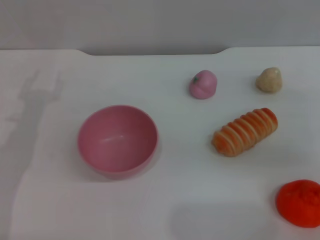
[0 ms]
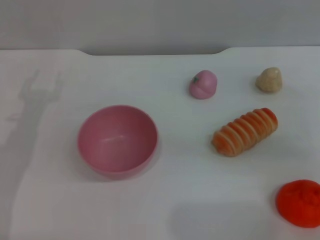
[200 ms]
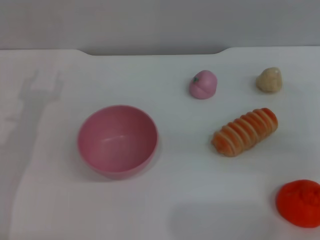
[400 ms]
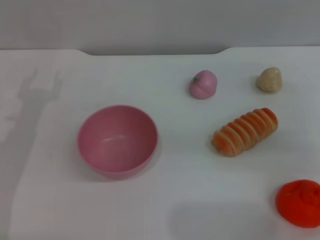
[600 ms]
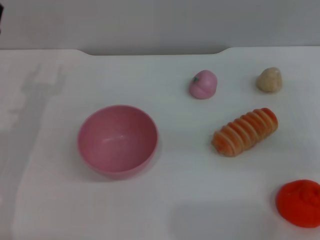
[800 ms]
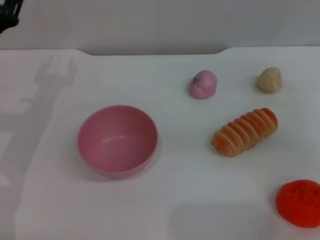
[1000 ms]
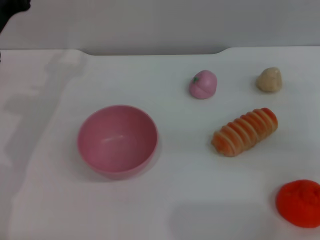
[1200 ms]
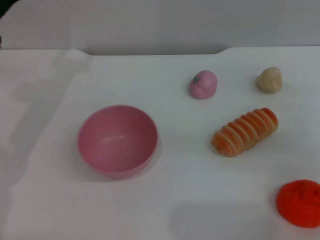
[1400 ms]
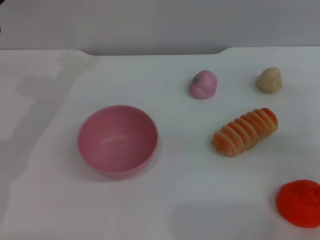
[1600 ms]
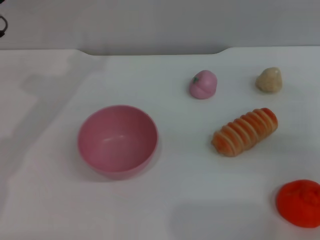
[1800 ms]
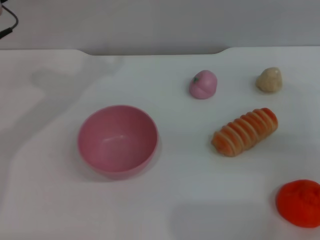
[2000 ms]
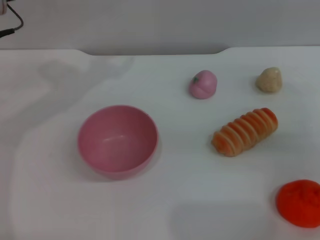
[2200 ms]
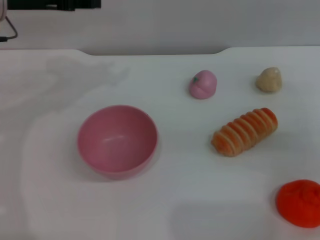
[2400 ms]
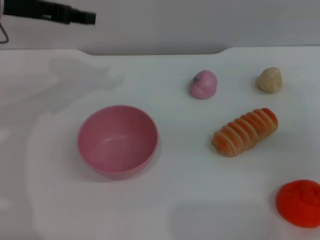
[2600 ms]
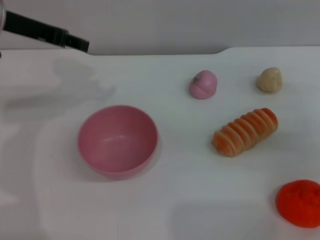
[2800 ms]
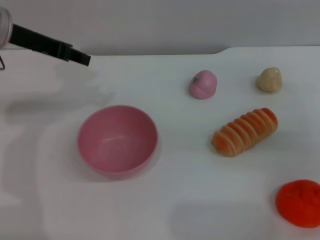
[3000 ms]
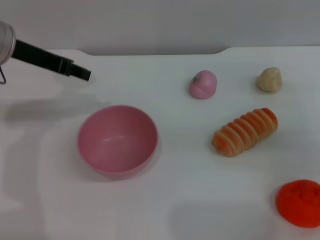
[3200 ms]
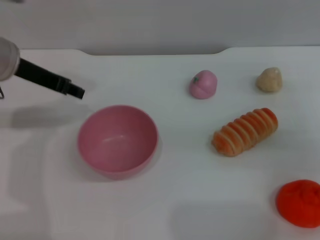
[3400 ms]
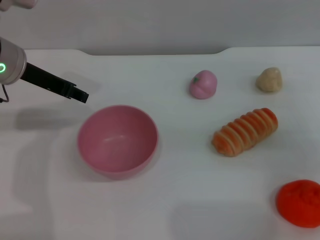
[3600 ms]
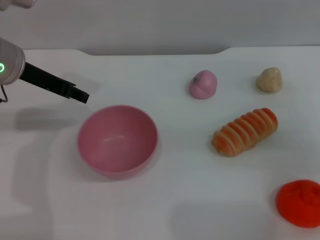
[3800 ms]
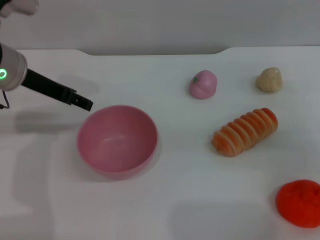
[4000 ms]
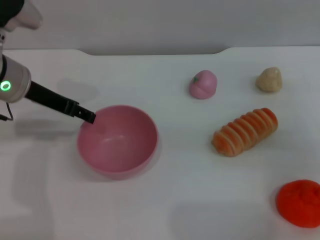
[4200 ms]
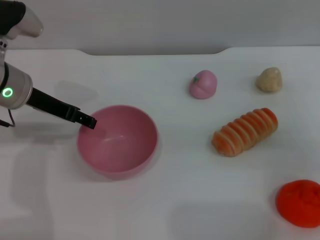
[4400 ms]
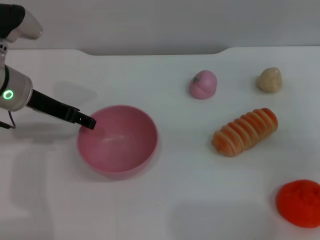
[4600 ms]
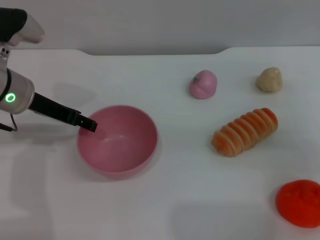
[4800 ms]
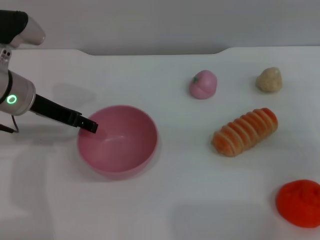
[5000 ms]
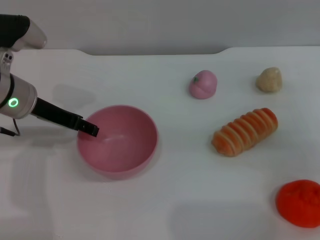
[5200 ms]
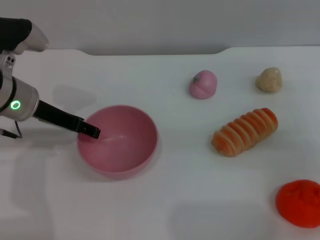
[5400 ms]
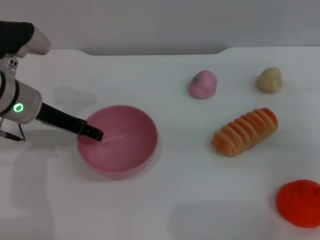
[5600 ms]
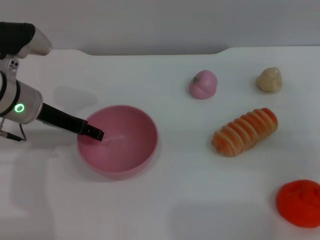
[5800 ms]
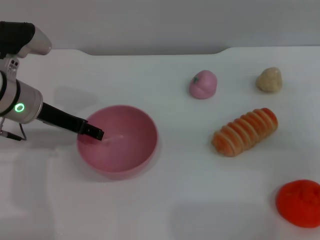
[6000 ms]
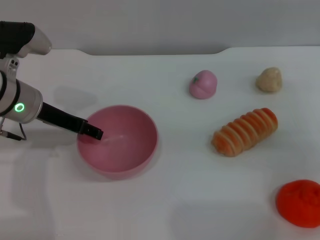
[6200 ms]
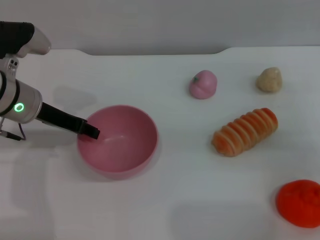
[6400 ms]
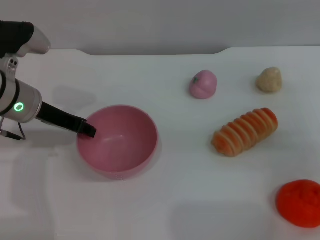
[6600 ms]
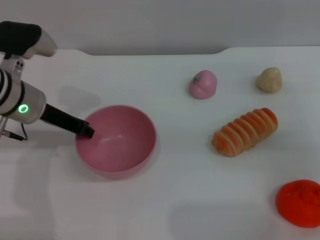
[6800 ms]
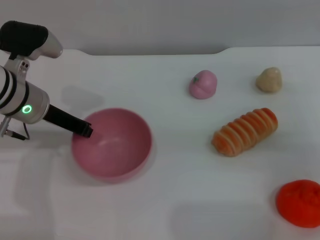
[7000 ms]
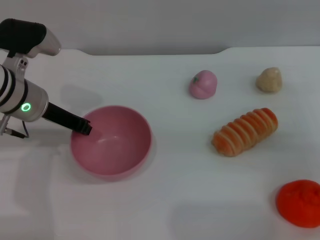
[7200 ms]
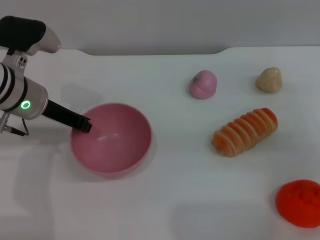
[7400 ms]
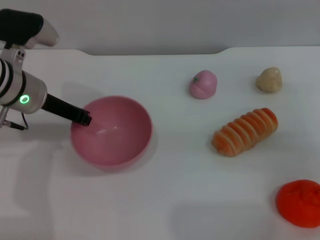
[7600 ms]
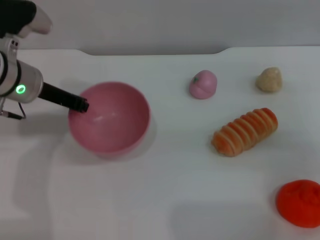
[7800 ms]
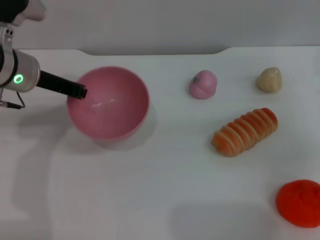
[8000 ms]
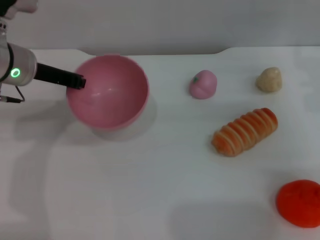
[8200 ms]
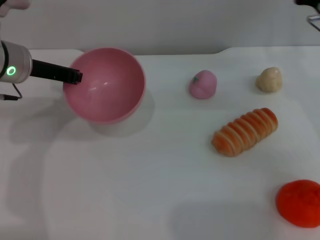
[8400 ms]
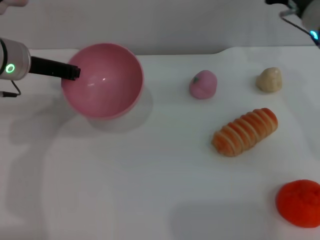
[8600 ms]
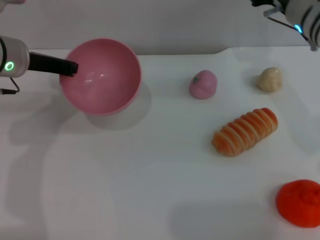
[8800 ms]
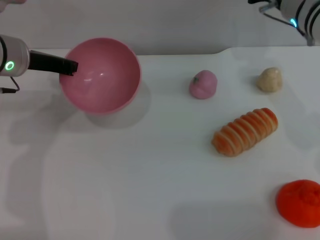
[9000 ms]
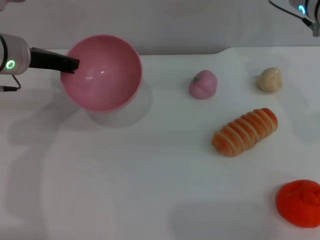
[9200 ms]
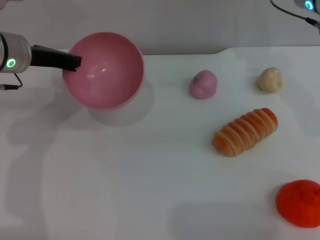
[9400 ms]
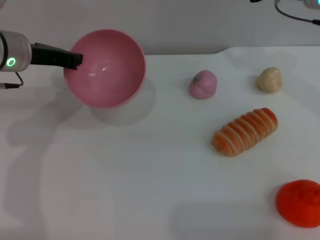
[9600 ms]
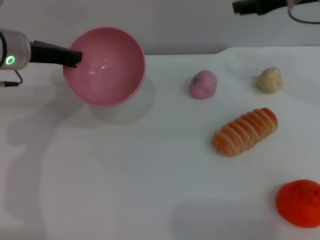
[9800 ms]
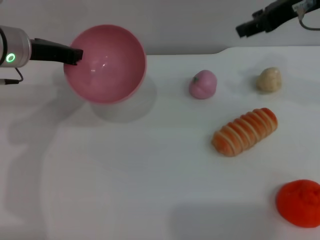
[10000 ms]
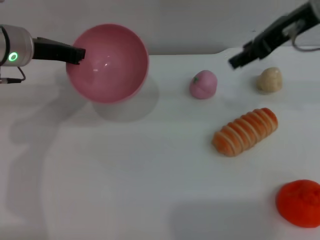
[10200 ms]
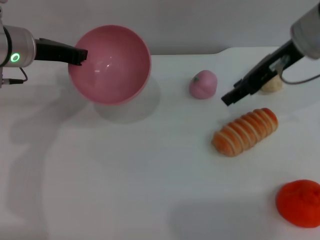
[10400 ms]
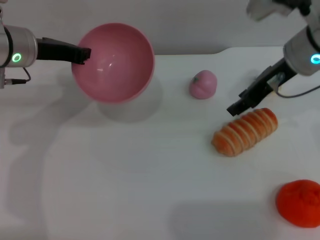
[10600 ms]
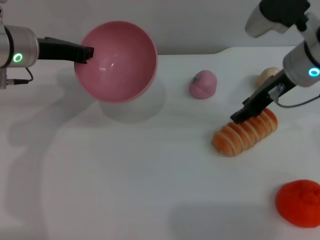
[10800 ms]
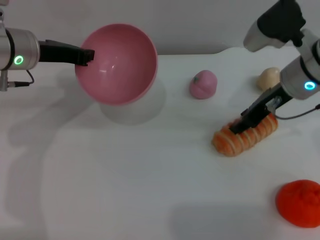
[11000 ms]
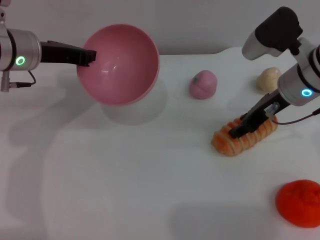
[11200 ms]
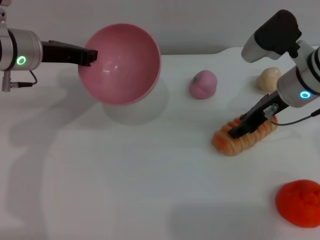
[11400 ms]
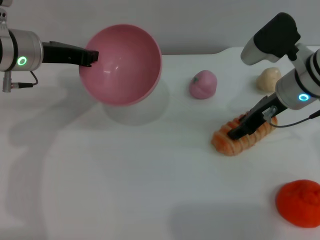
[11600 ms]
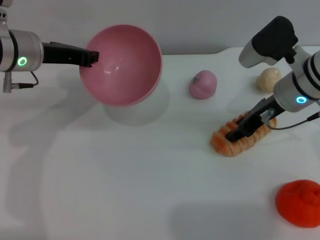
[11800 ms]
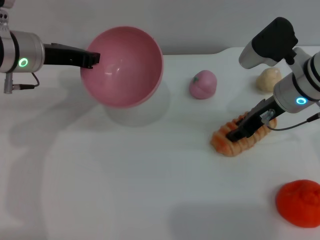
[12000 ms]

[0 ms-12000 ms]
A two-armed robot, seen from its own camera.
Task of the whole recording: put the bread into the pink bowl and pour it out repeatedly.
Step, 0 ms to 8200 ms: Pick up the bowl with the left gripper.
3000 ms to 4400 ms: The left gripper moves downward, roughly 5 cm.
4400 ms to 6000 ms: There are only small adjustments of the grippers.
6000 ms to 7600 ms: The left gripper closes its fingers.
7600 ms to 9000 ms: The right gripper travels to the left, forward and upward by approximately 20 cm.
10400 ms to 12000 ms: The right gripper heads downward, covering some 10 cm.

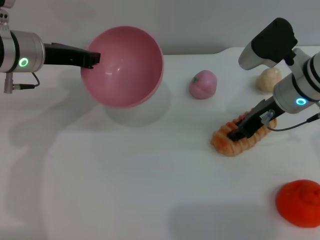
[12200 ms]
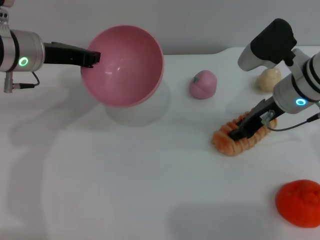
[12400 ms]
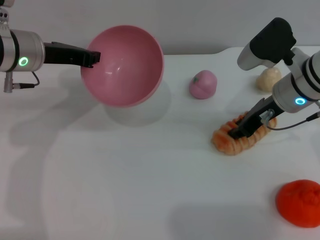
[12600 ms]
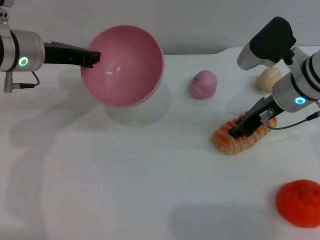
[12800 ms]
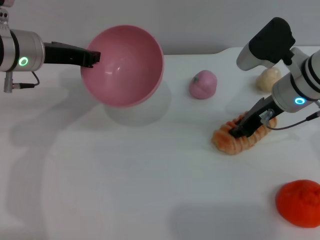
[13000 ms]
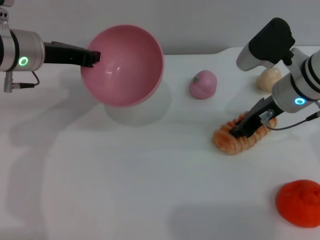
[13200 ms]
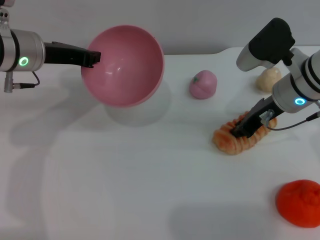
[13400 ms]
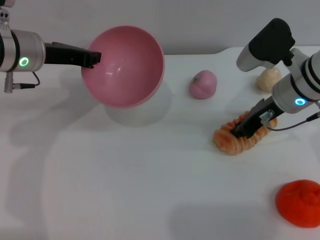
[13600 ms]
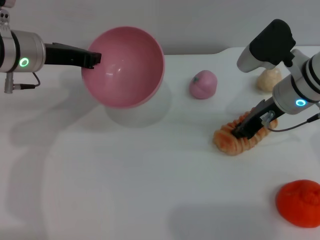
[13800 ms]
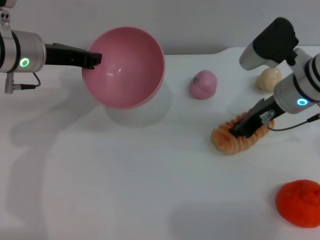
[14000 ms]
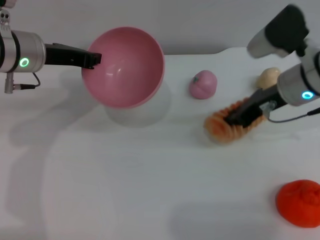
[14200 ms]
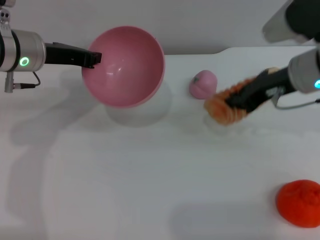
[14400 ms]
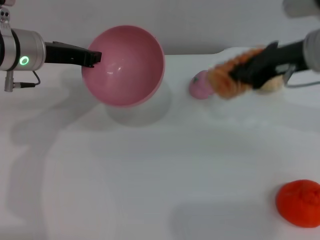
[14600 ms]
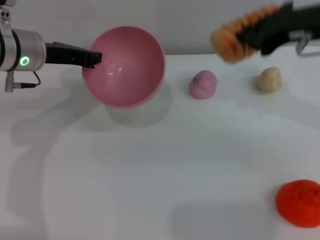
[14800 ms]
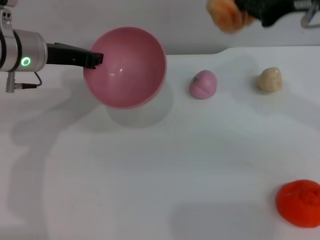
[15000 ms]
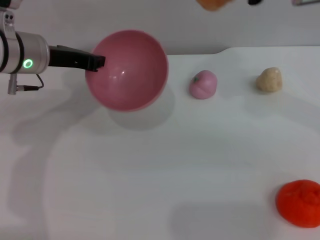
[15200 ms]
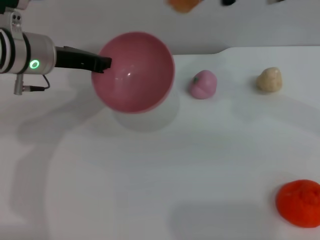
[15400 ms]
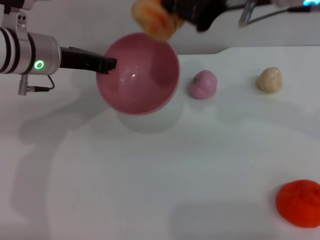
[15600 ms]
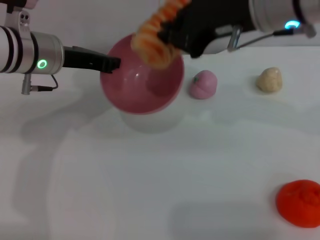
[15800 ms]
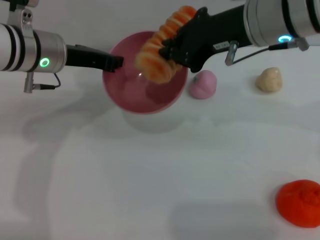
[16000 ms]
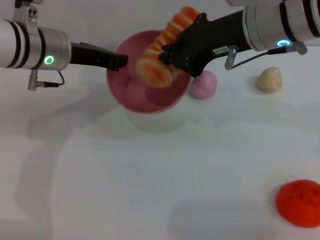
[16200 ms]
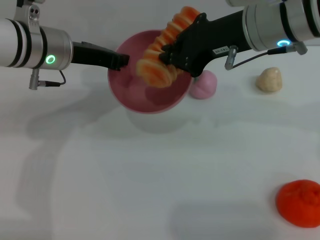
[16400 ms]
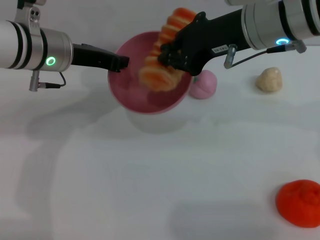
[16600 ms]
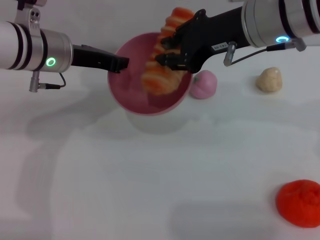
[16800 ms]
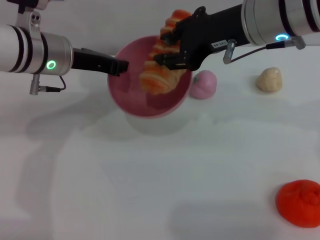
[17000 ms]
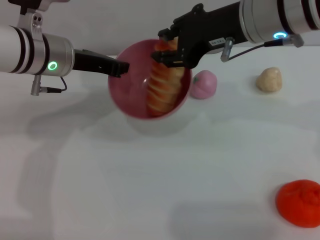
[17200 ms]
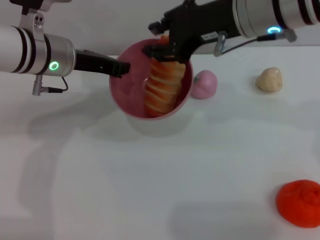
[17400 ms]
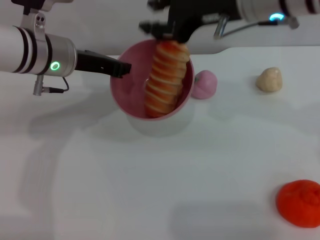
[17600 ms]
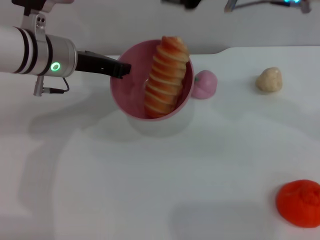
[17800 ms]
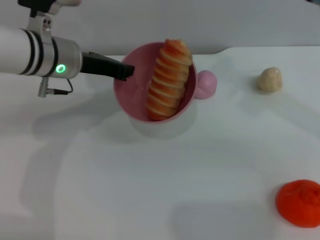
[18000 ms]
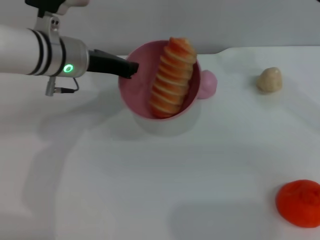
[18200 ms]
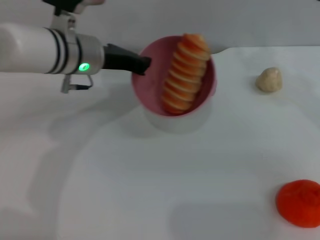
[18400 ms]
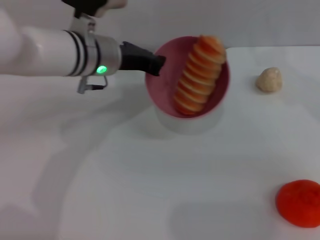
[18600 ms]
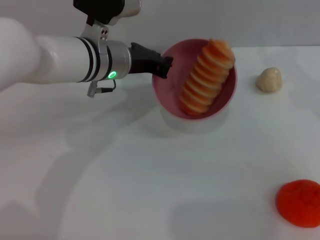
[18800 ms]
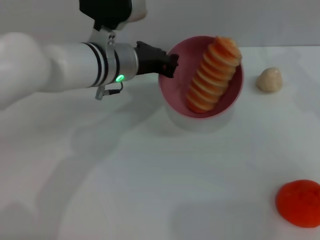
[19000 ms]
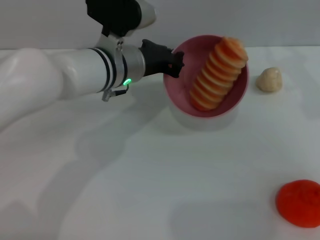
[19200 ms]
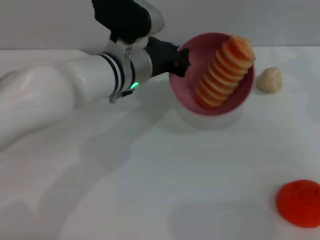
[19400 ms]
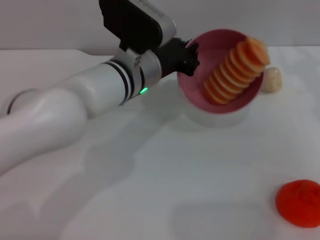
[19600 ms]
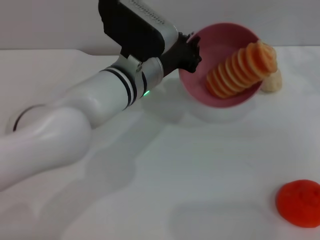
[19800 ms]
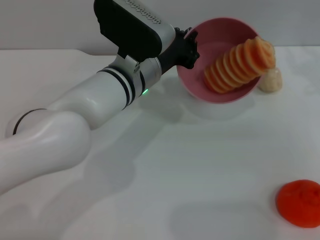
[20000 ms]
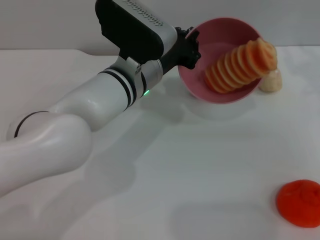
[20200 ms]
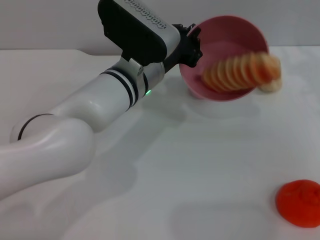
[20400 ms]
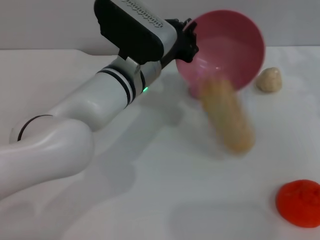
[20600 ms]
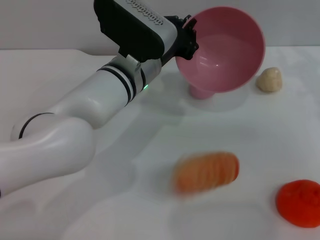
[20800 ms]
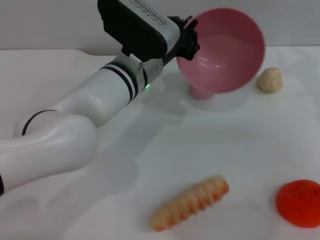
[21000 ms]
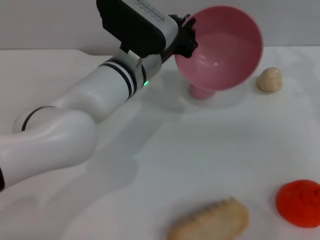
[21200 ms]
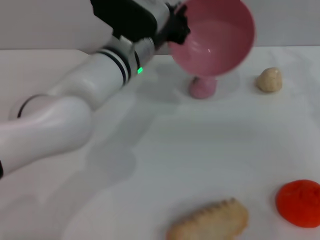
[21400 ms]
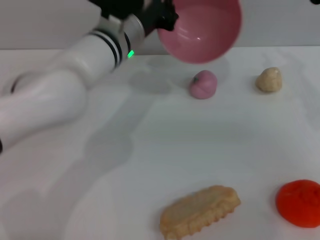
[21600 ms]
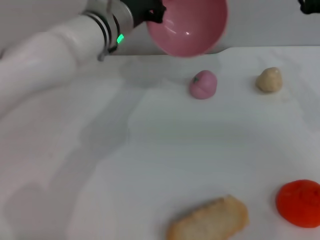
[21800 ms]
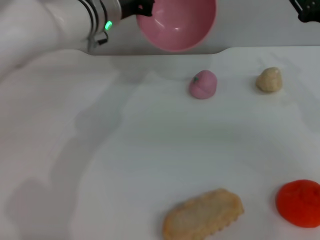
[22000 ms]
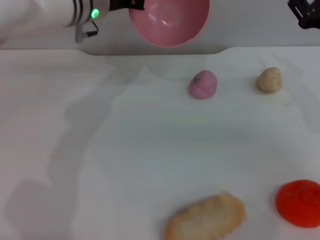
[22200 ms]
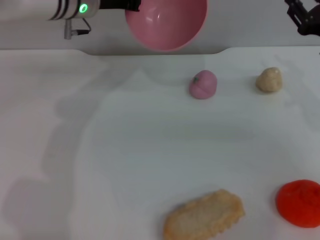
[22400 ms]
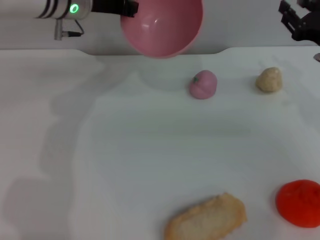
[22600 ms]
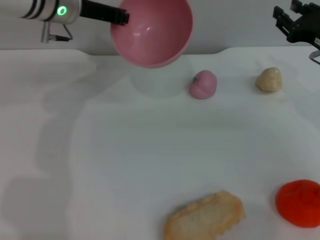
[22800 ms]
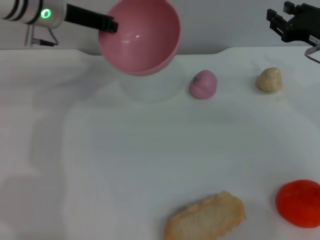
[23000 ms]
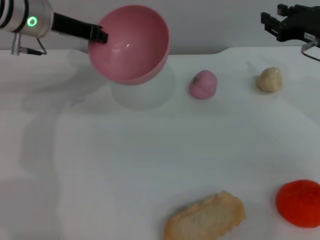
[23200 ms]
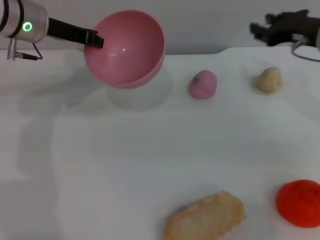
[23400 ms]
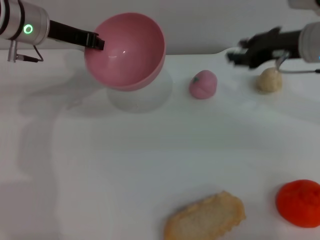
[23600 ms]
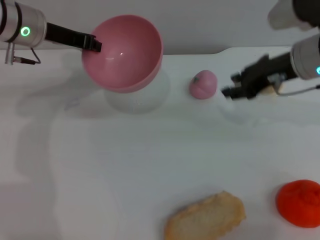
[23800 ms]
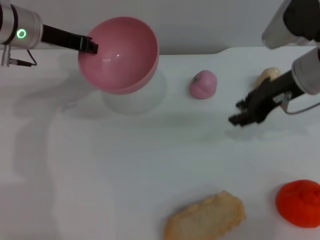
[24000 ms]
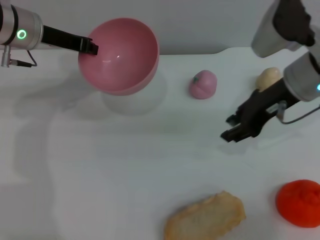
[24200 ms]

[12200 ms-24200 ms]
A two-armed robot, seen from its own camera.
Task of the whole recording: put the bread into the pink bowl and pour it out repeatedly.
Step, 12200 ms to 14600 ms: Pick up the bread with the right gripper.
Step, 14800 ms to 17400 ms: Place the bread into the bowl.
Step, 17600 ms to 21400 ms: Pour the bread out of the bowl.
12200 ms to 13800 ms: The right gripper closes its fingers.
13800 ms to 15200 ms: The right gripper heads upward, covering approximately 20 cm.
15200 ms to 16600 ms: The right gripper heads downward and to the left, covering roughly 10 cm.
16600 ms to 18200 ms: The right gripper heads to the right, covering some 10 cm, and opens up.
18200 ms to 19800 ms: The left gripper travels to the right by roughly 10 cm. The right gripper travels to the right and downward by some 15 cm.
19800 ms to 21200 ms: There are only small adjustments of the grippers.
21200 ms to 22600 ms: The left gripper heads to the left, forward and upward, covering about 15 cm; the right gripper travels downward by some 5 cm.
22600 ms to 24200 ms: The left gripper moves to the left, approximately 5 cm; the right gripper is displaced to the left and upward by some 10 cm.
